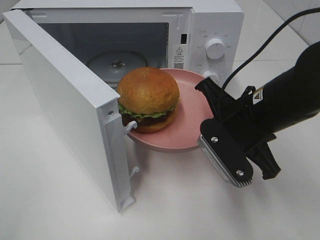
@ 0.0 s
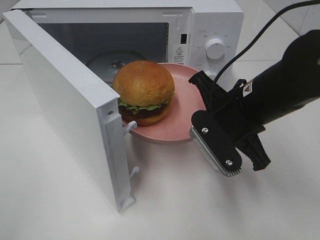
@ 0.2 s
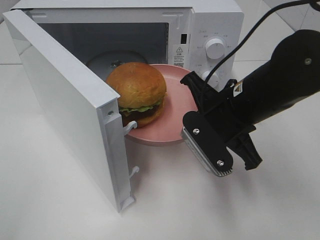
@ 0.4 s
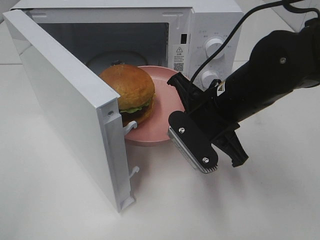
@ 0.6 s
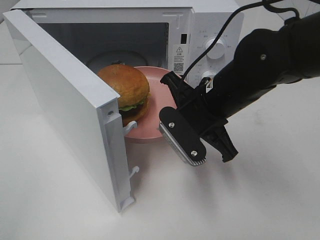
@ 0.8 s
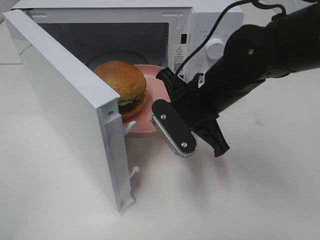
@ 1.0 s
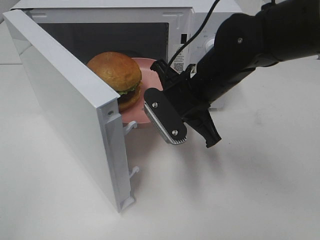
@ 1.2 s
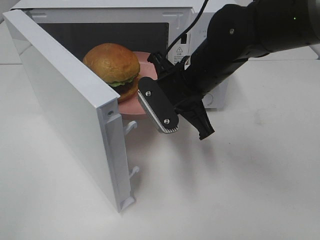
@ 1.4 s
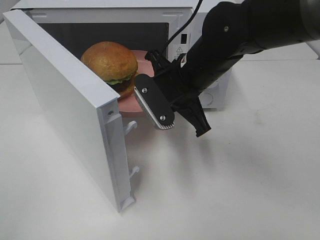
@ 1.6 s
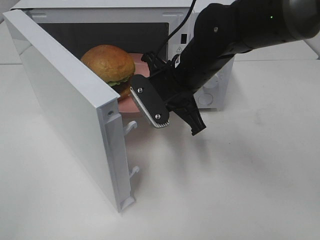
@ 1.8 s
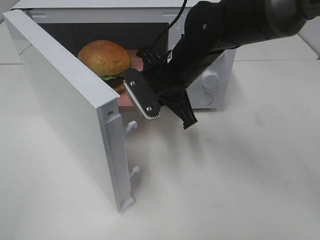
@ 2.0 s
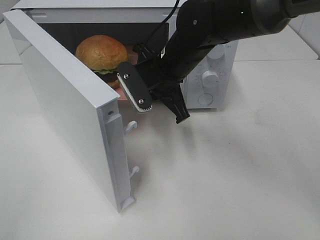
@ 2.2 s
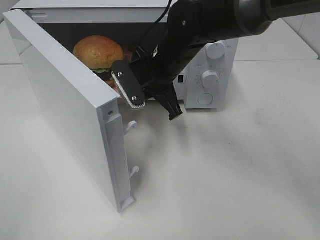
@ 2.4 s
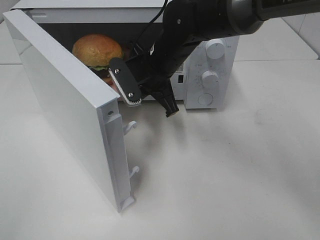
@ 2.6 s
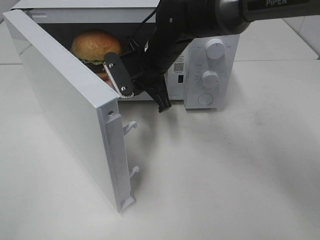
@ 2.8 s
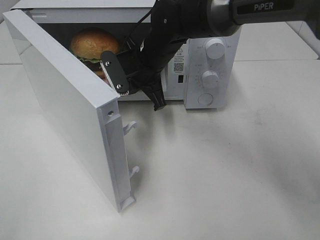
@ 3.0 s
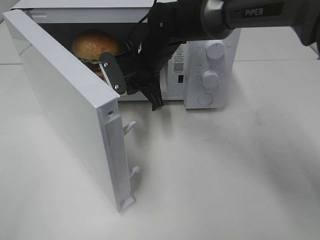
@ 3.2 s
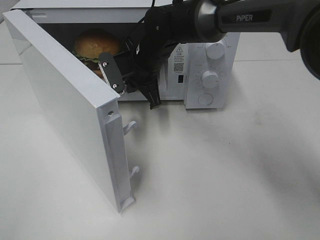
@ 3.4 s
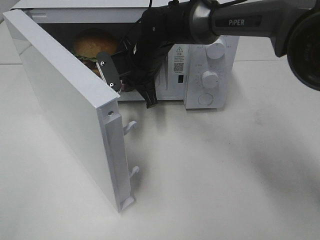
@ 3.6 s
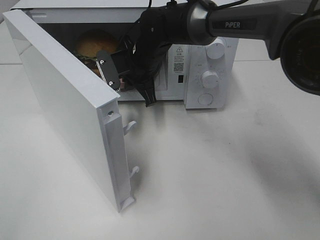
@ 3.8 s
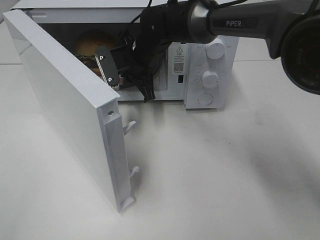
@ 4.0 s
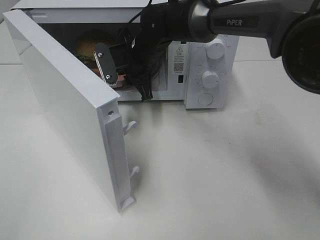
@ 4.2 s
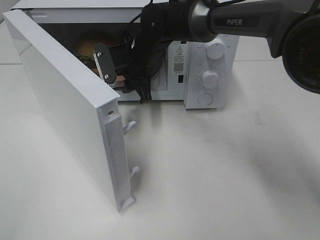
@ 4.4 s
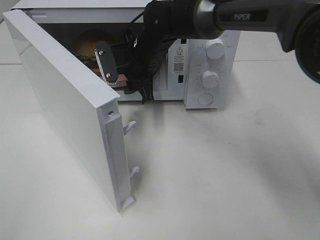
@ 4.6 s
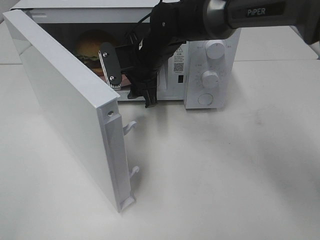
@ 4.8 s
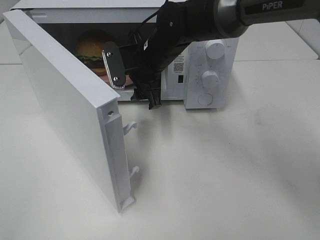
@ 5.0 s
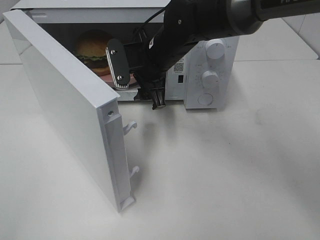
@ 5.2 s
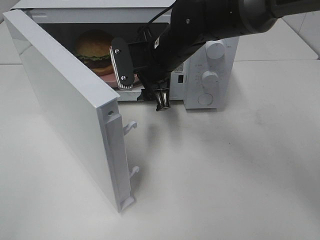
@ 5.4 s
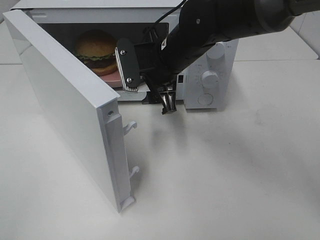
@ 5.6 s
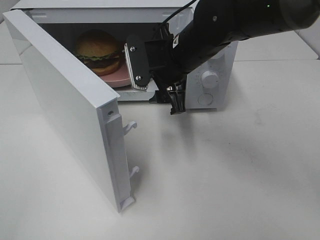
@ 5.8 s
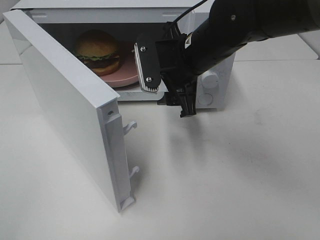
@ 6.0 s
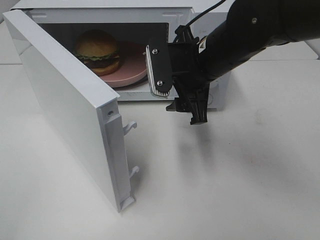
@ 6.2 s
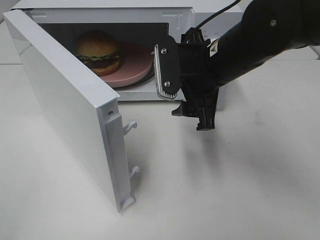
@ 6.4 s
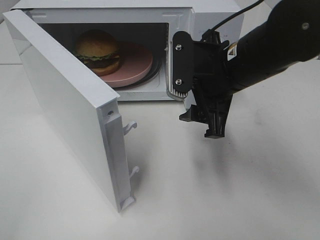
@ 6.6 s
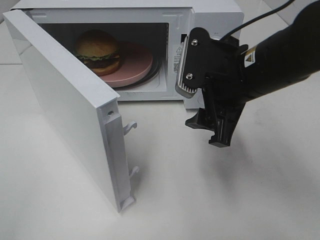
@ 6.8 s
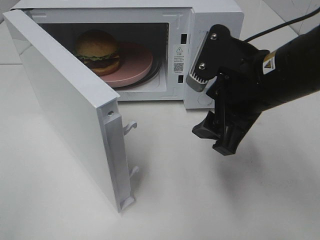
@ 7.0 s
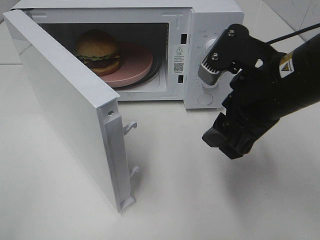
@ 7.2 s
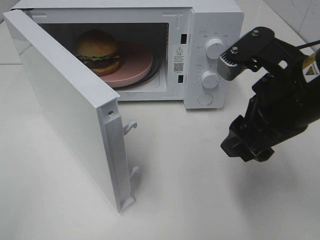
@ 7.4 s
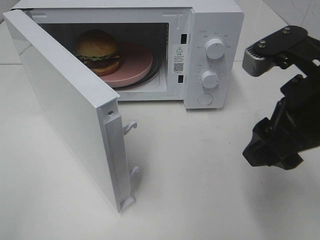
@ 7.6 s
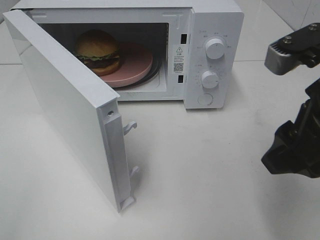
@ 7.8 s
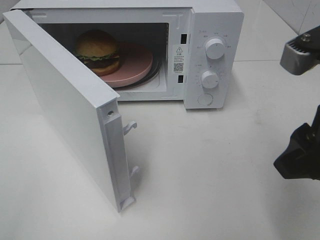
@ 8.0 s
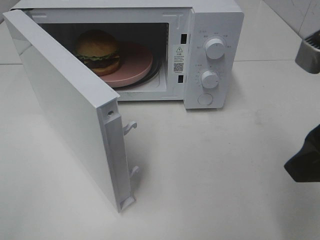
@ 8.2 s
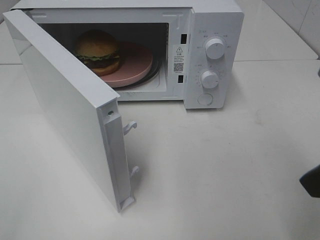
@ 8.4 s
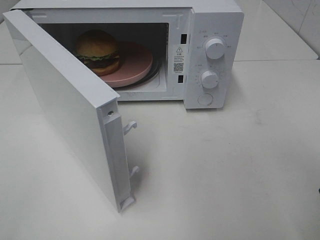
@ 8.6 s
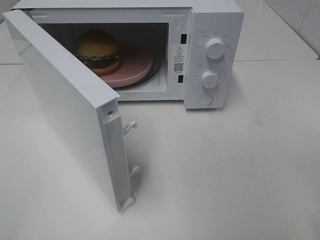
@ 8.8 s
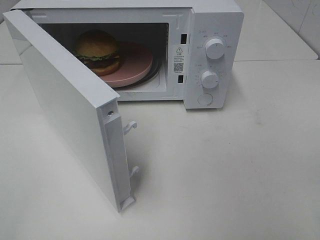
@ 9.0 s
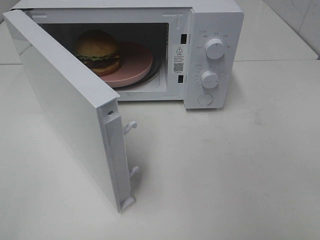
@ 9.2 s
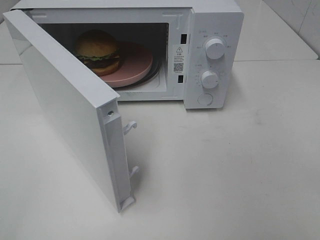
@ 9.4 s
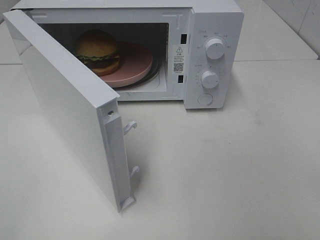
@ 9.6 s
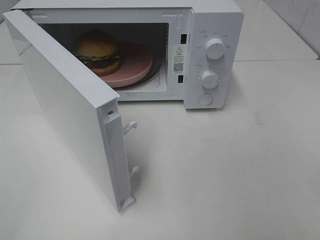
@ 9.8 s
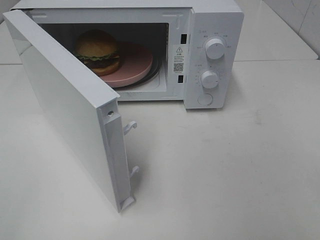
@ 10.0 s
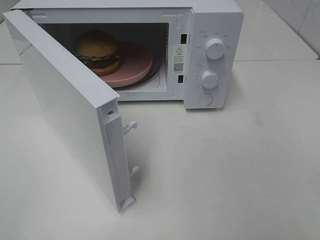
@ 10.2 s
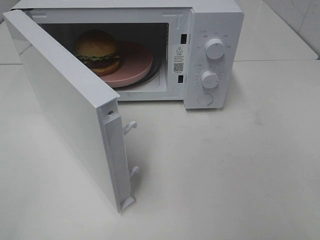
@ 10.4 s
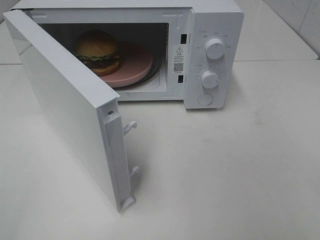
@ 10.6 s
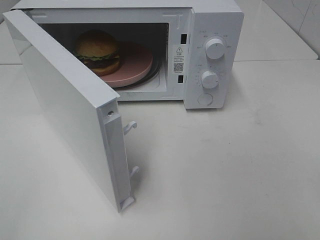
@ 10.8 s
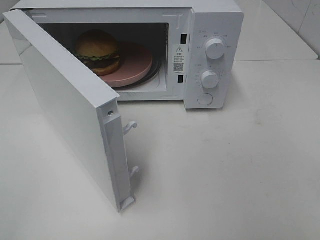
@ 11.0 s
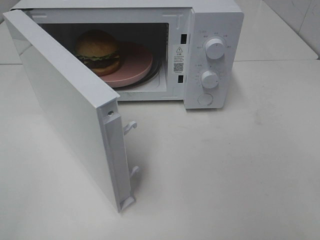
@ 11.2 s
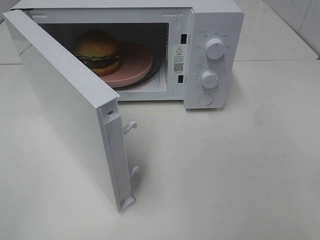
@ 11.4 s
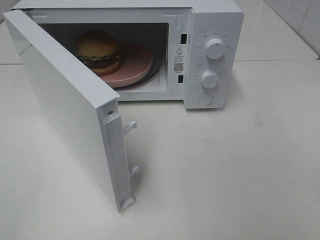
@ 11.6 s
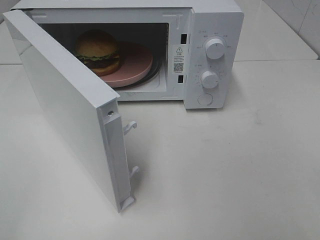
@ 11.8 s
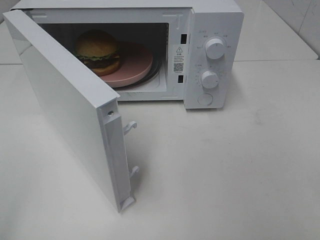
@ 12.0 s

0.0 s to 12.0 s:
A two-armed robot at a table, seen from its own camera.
Task of the whole recording: Heat the burger.
Step, 0.0 to 4.2 s: Right hand: place the plate in the microwave.
0.0 to 1.6 s: The right gripper travels forward and to the left by some 10 cm.
1.6 to 3.0 s: The right gripper heads forward and to the left, covering about 10 cm.
3.0 to 4.4 s: The right gripper opens its fingers.
4.4 to 6.0 s: The right gripper goes roughly 15 cm backward and to the right.
6.0 to 7.6 s: The right gripper heads backward and to the right, covering about 20 cm.
7.6 to 9.0 s: The right gripper is displaced backward and to the right by some 15 cm.

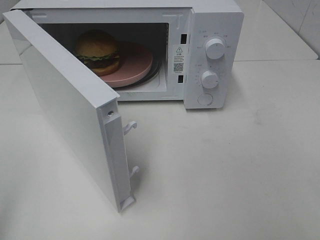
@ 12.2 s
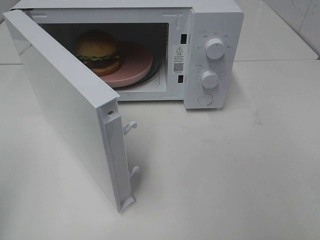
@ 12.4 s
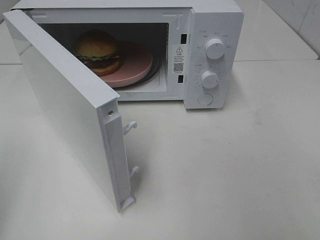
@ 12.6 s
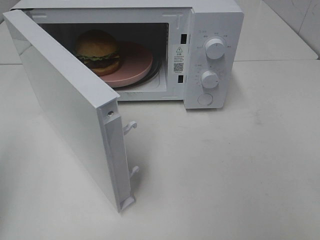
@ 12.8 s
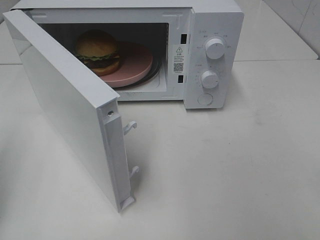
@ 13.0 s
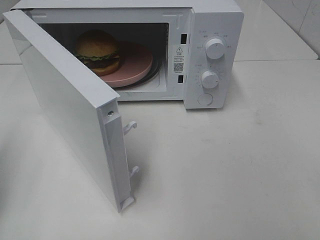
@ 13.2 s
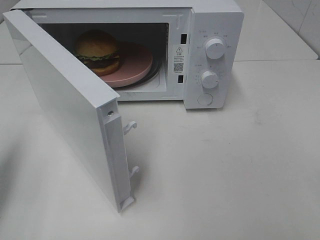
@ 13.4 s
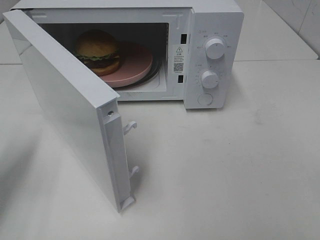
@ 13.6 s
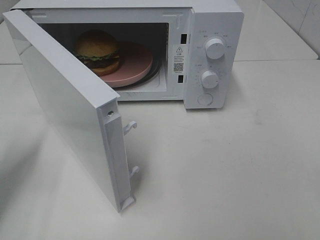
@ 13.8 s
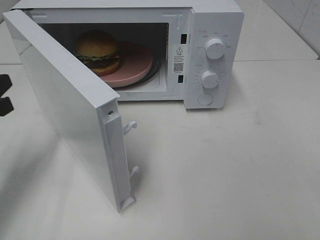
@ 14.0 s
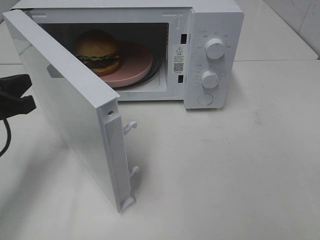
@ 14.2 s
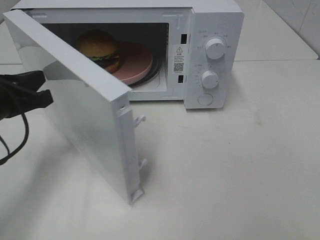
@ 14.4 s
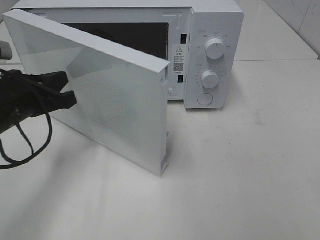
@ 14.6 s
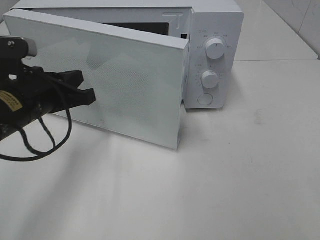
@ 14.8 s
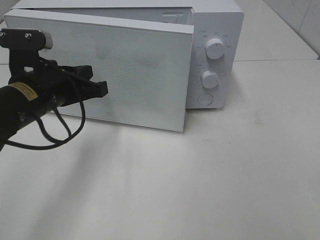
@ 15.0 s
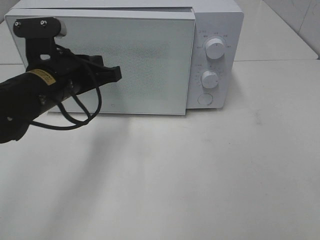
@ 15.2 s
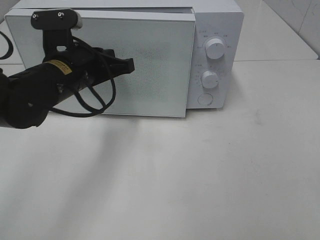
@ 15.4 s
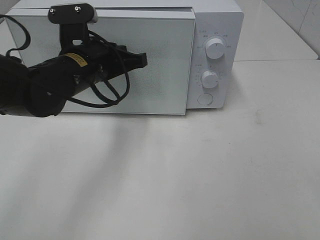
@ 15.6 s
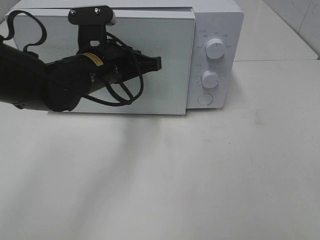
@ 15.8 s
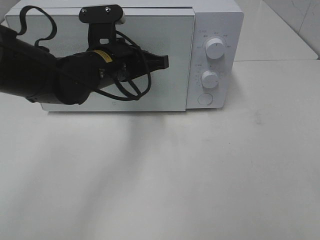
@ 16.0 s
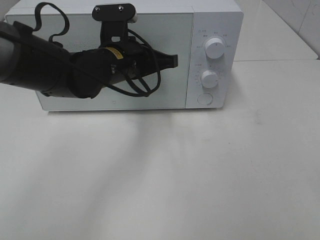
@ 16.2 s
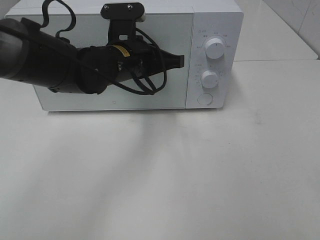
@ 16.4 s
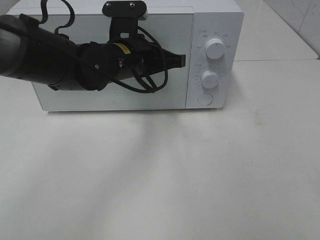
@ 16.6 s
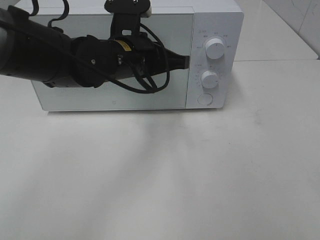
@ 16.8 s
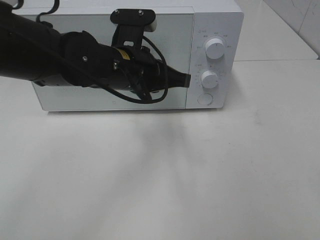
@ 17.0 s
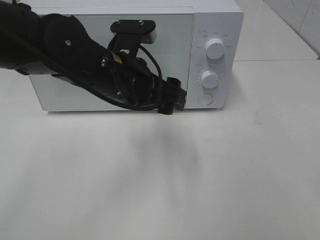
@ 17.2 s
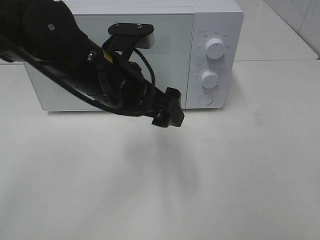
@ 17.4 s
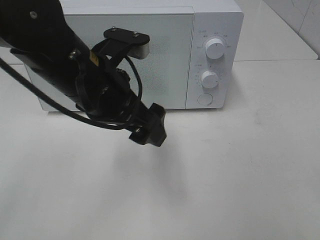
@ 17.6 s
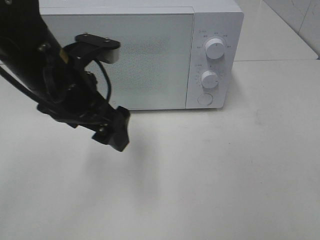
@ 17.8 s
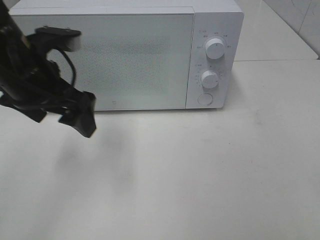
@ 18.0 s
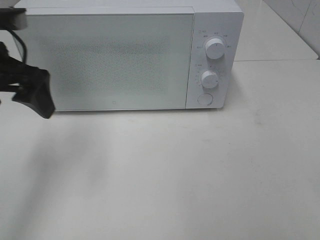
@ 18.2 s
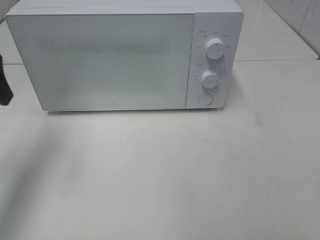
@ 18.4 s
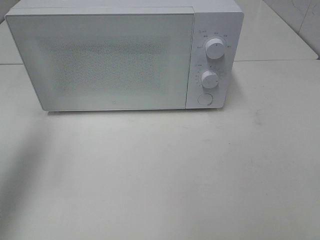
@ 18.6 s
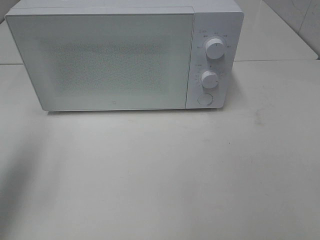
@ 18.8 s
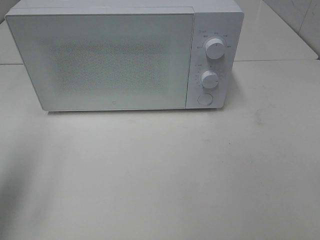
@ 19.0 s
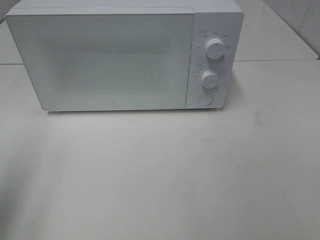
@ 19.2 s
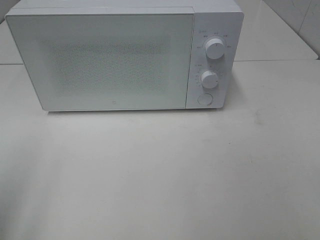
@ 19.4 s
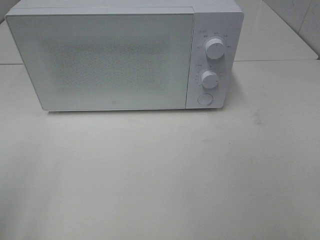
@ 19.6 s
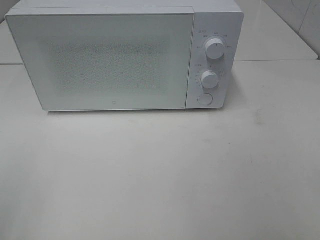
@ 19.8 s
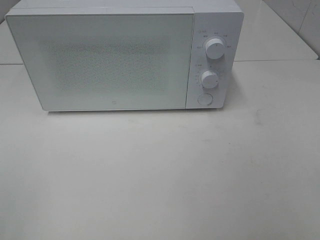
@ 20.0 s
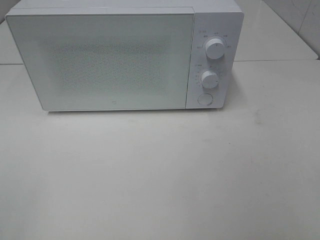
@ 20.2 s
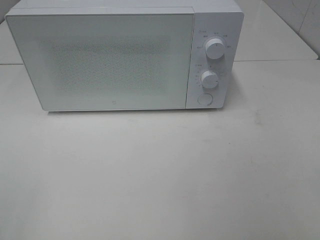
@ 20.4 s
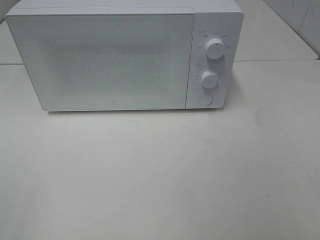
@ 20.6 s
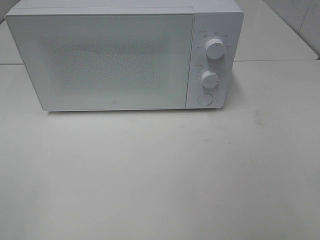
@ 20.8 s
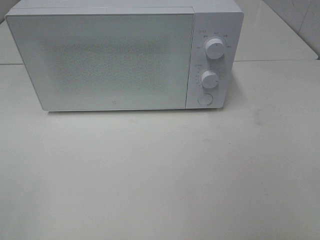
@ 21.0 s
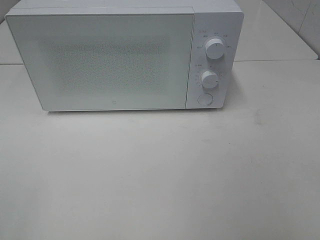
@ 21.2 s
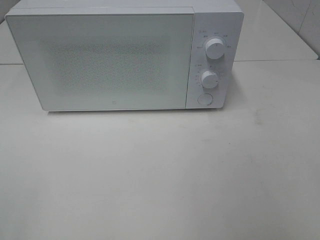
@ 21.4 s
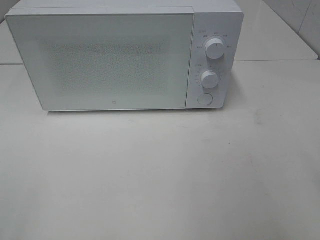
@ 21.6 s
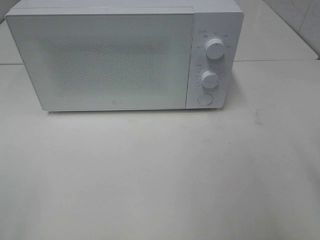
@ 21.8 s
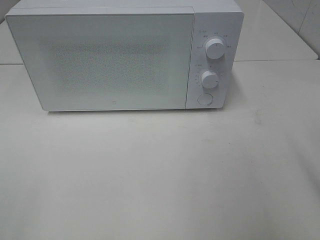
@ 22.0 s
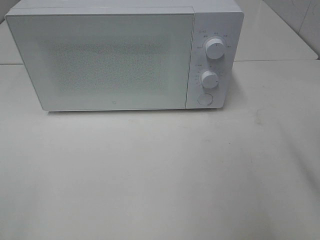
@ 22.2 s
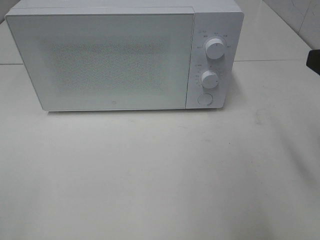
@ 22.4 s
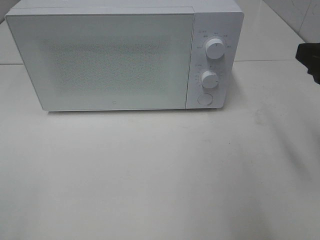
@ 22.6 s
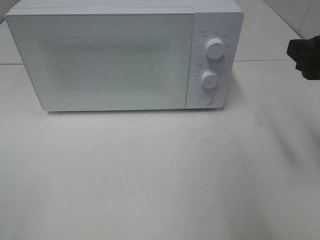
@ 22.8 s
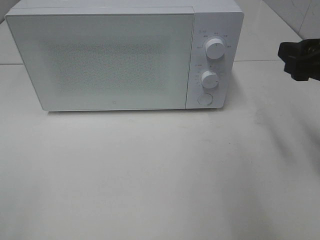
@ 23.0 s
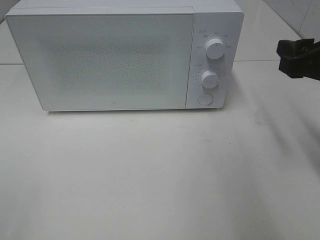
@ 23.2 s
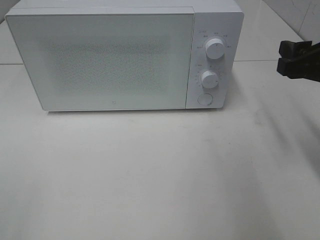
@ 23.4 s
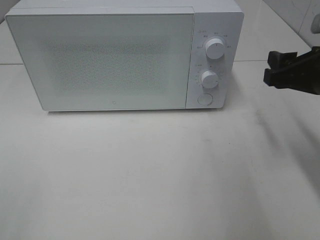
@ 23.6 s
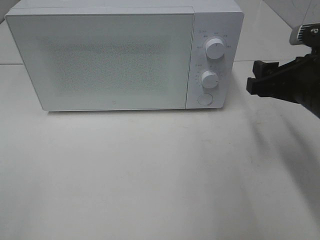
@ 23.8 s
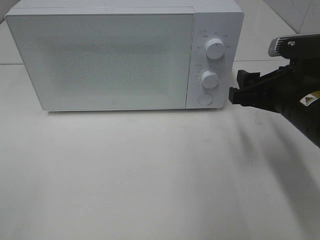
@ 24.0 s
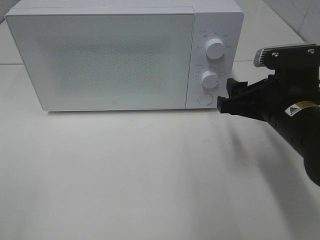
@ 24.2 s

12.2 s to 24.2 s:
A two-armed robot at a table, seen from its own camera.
Task of the whole recording: Heat the burger.
Step, 12.2 to 16.6 s: Left hand: close the microwave door.
12.2 to 13.8 s: The left gripper moves forward and downward, some 20 cm, and closes up.
13.8 to 15.2 s: The left gripper travels to the right and forward by some 20 cm.
15.2 to 16.6 s: The left gripper goes some 10 cm to the right and forward.
16.6 to 18.2 s: The left gripper goes approximately 20 cm to the left and upward, and opens.
18.2 to 19.8 s: The left gripper shifts about 25 cm backward.
21.2 to 22.6 s: The right gripper goes approximately 15 cm forward.
22.6 to 24.2 s: The right gripper moves downward and to the left, approximately 10 cm.
